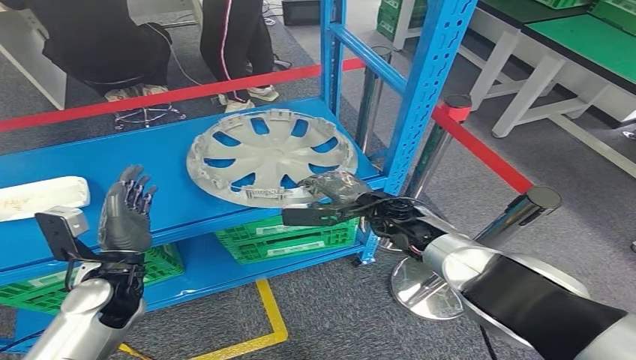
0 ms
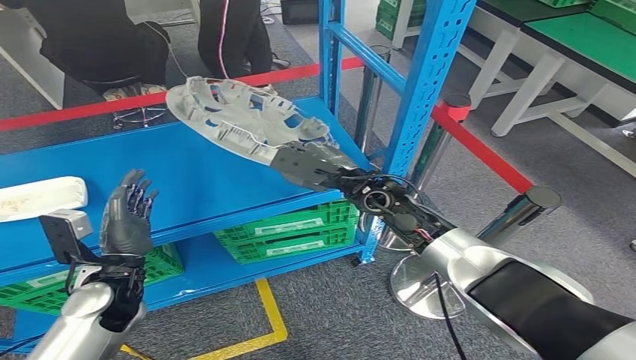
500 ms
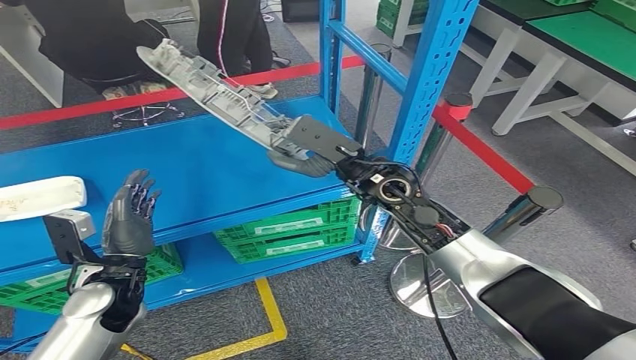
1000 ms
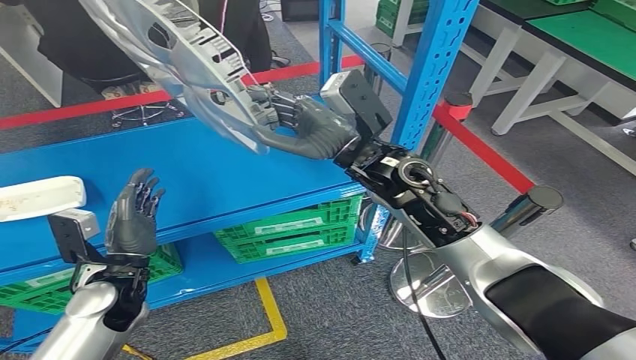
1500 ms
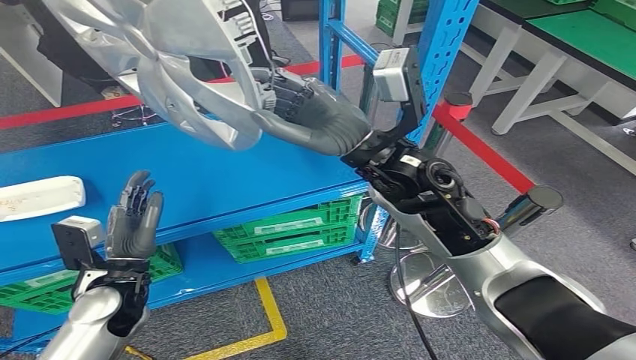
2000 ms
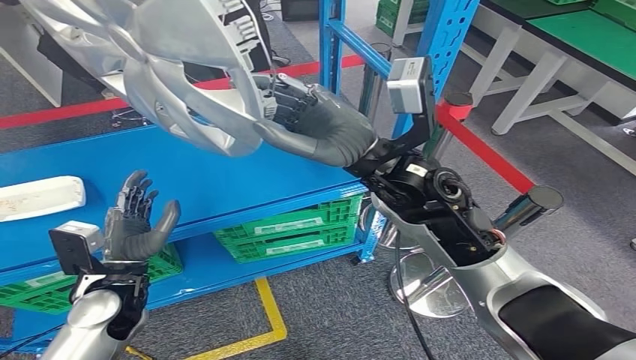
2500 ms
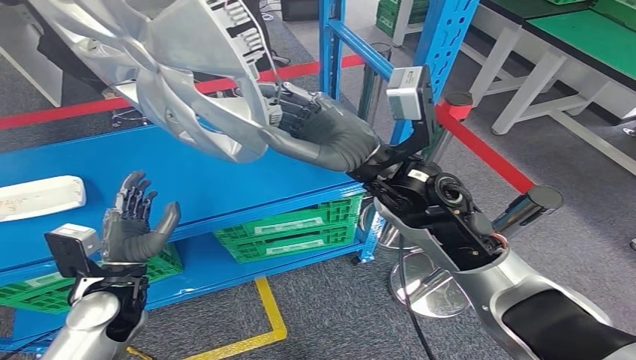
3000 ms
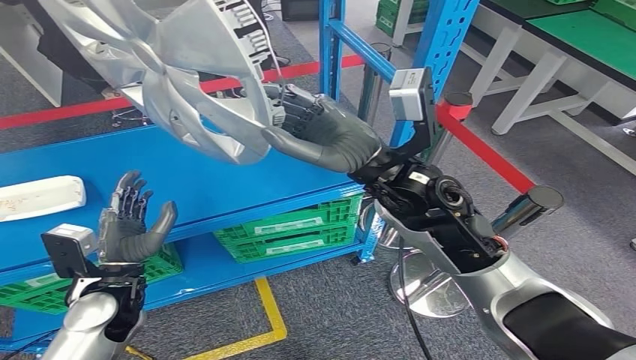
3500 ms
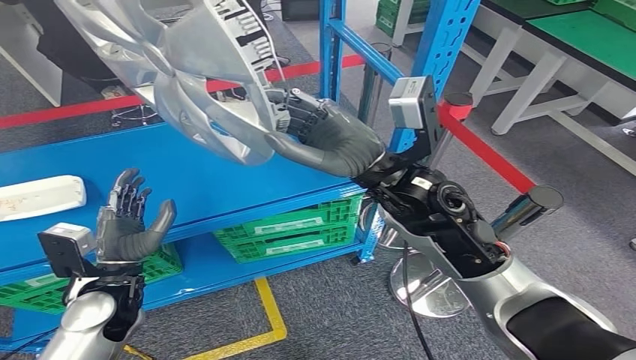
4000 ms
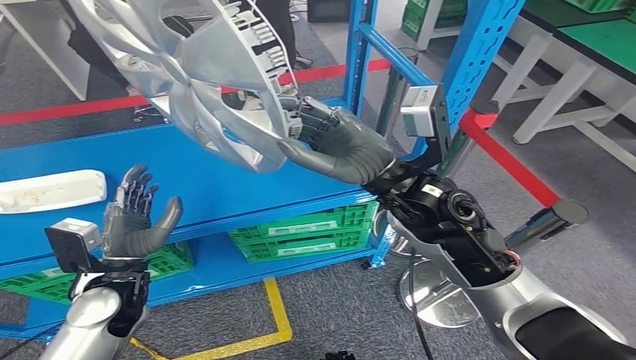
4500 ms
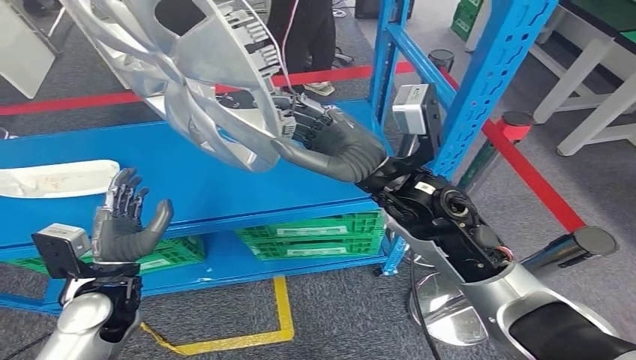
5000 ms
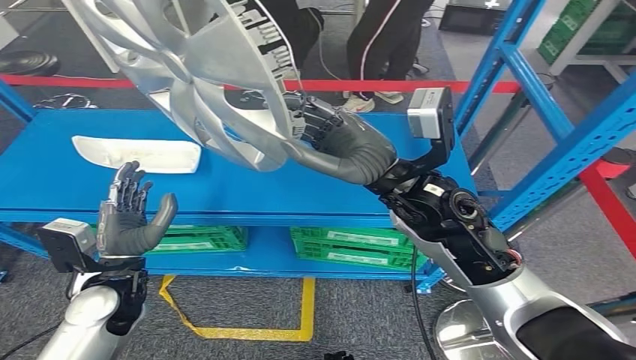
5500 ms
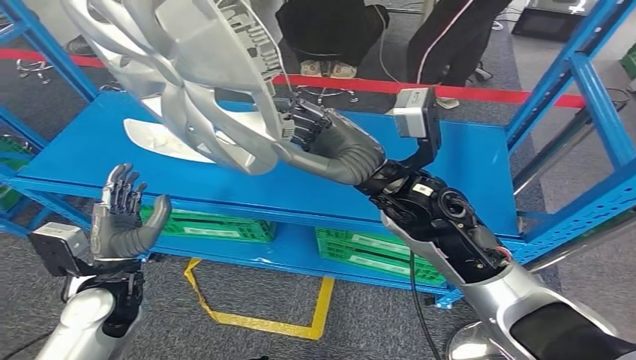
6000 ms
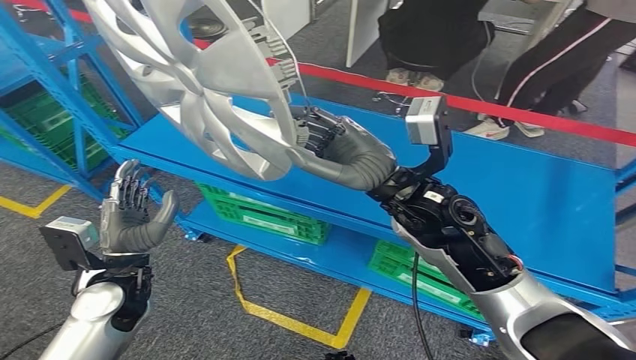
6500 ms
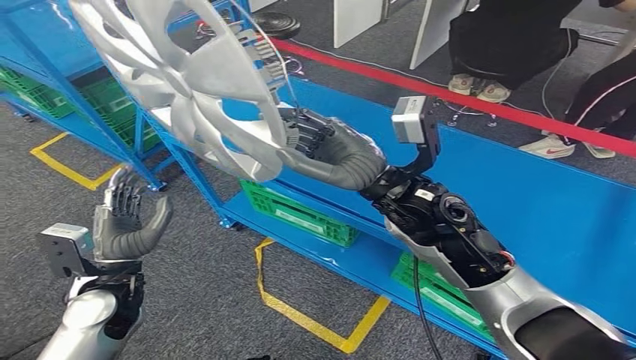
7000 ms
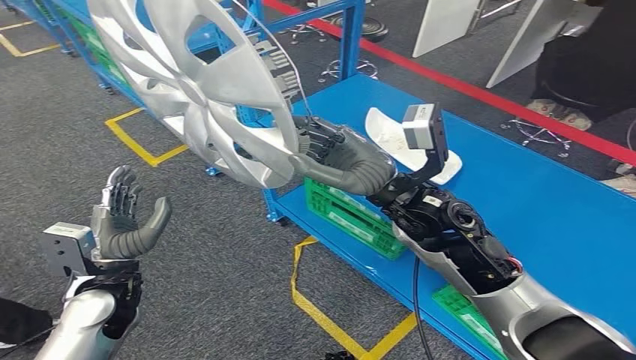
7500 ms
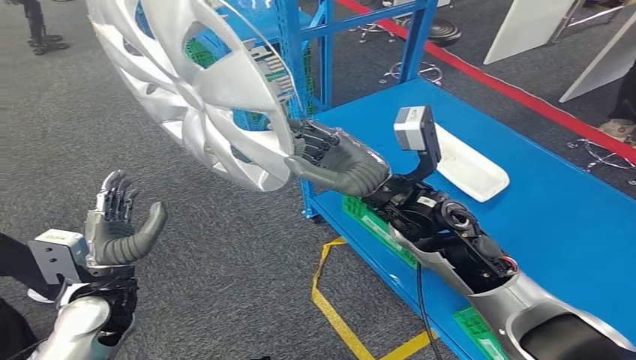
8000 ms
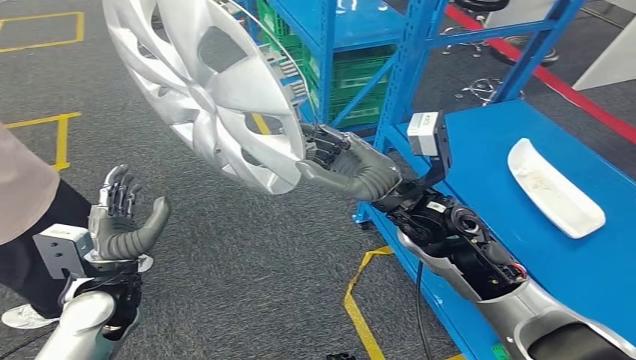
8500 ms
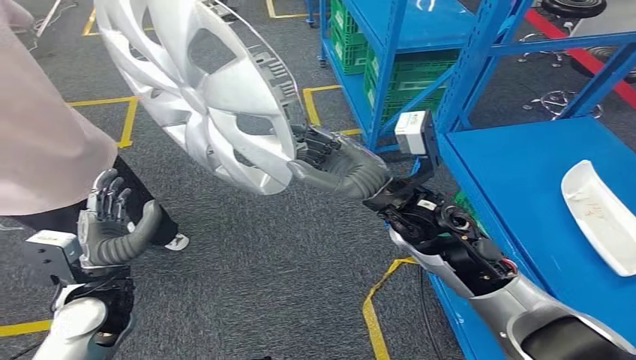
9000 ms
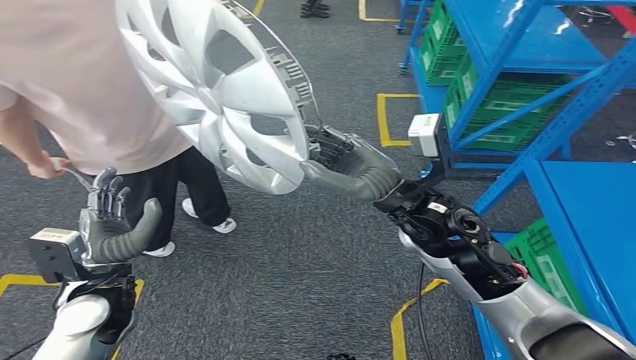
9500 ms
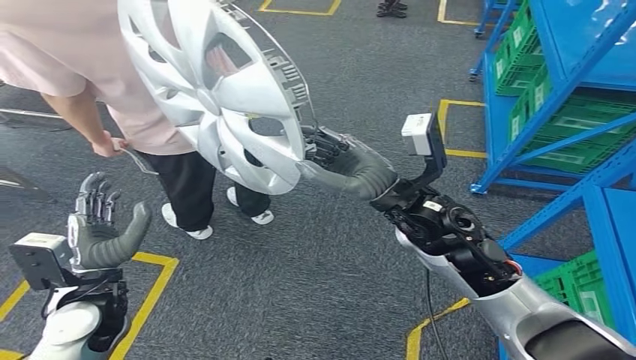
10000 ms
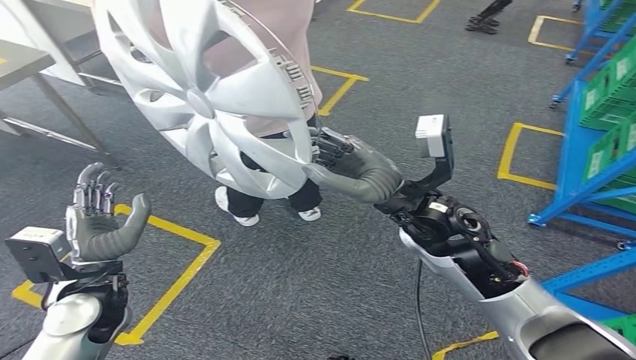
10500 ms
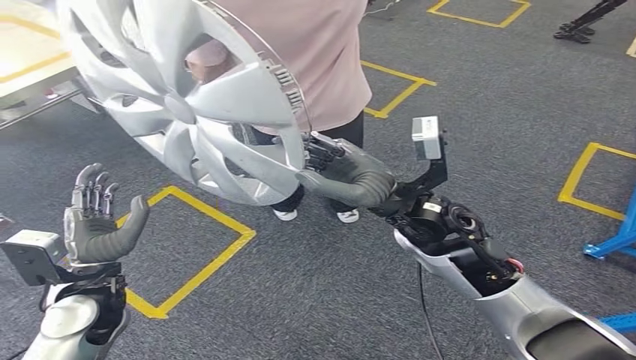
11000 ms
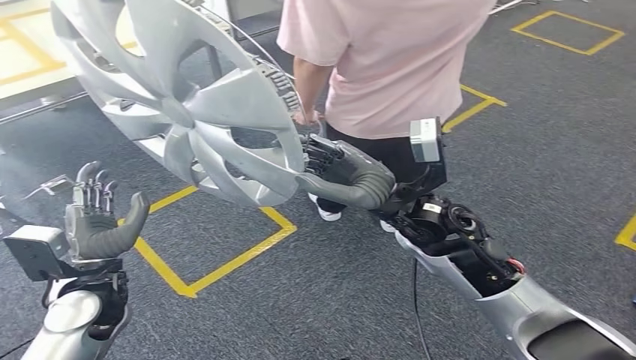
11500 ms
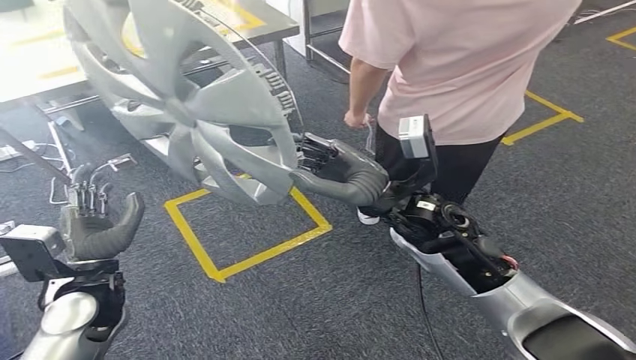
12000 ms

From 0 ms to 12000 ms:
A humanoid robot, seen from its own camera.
Step, from 0 ms to 3500 ms: Pick up the small parts from the shelf.
From 2000 ms to 4000 ms: The hands move only a little.

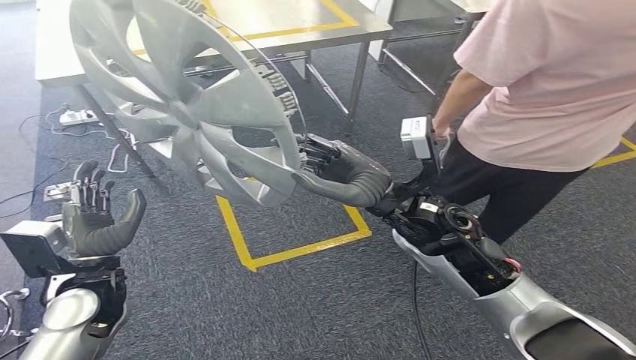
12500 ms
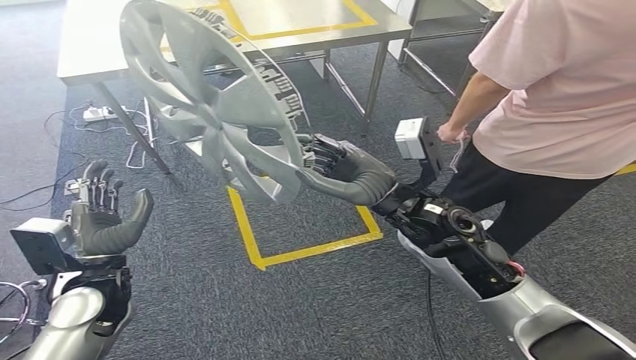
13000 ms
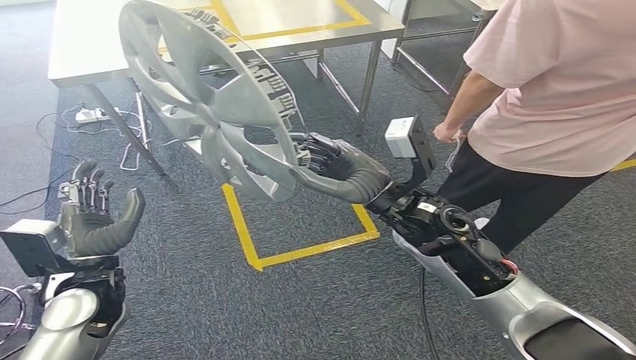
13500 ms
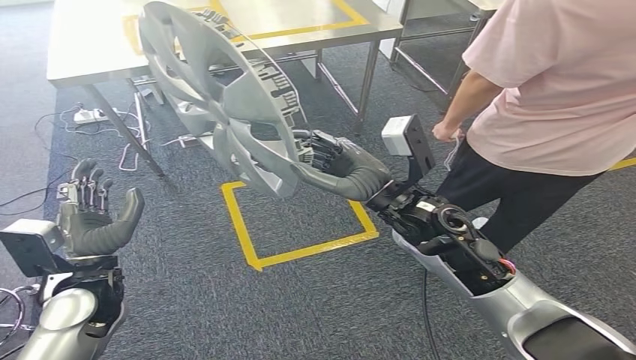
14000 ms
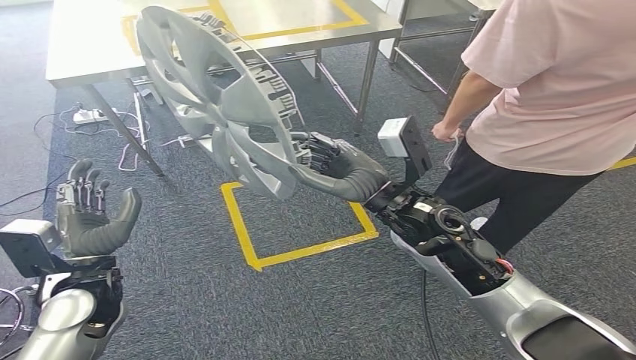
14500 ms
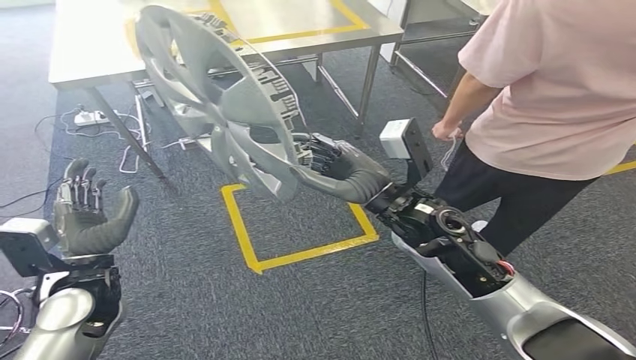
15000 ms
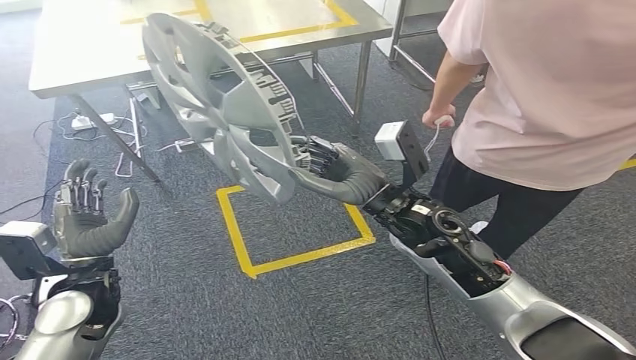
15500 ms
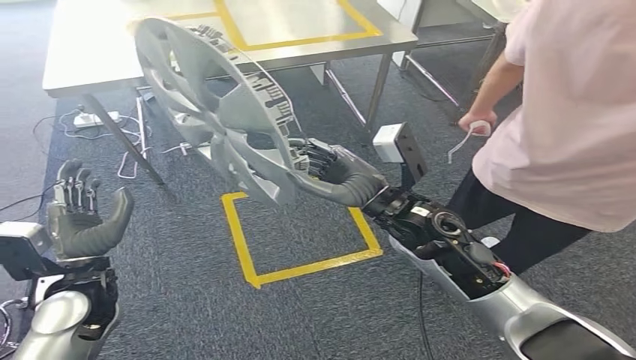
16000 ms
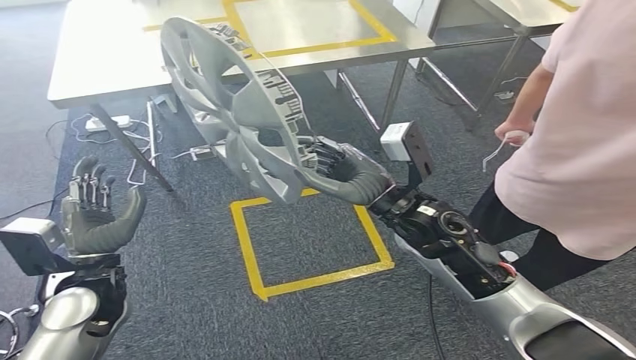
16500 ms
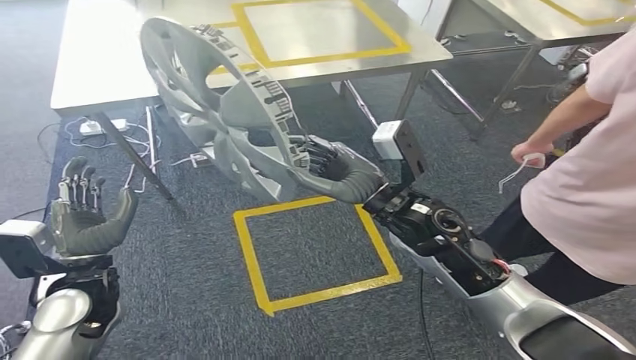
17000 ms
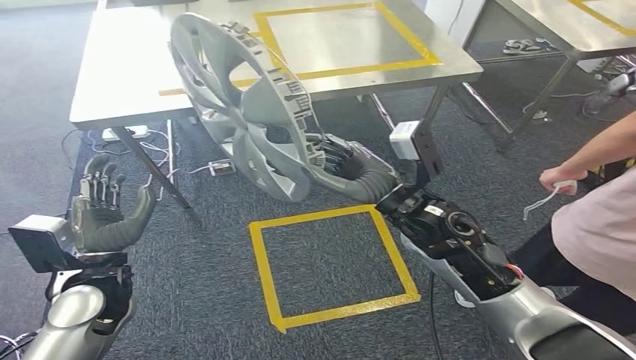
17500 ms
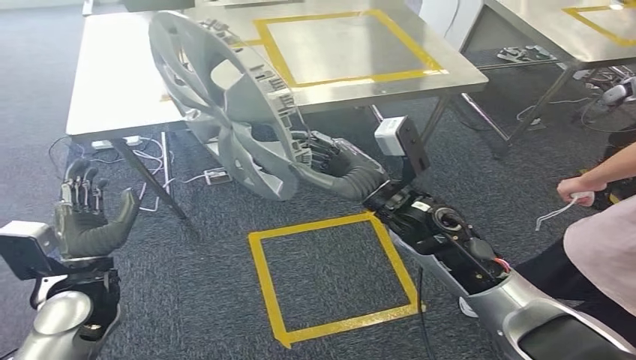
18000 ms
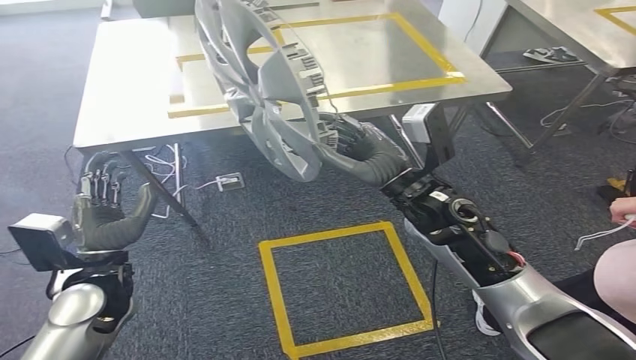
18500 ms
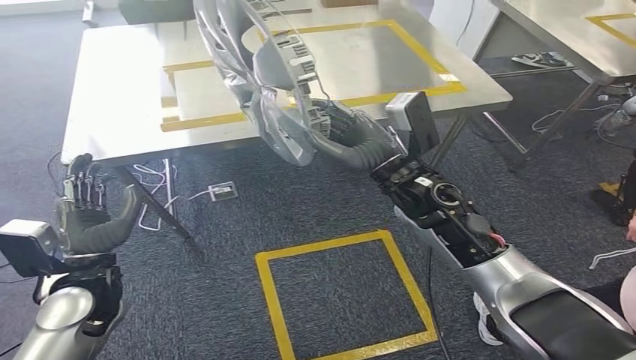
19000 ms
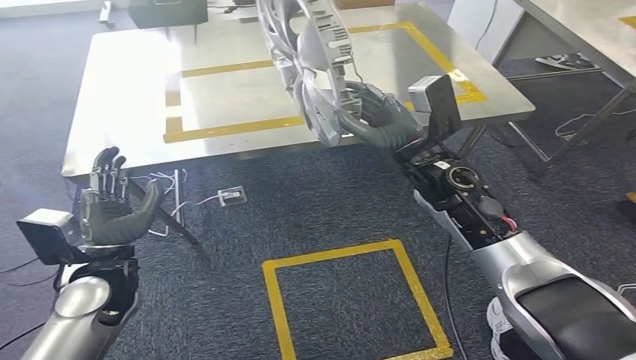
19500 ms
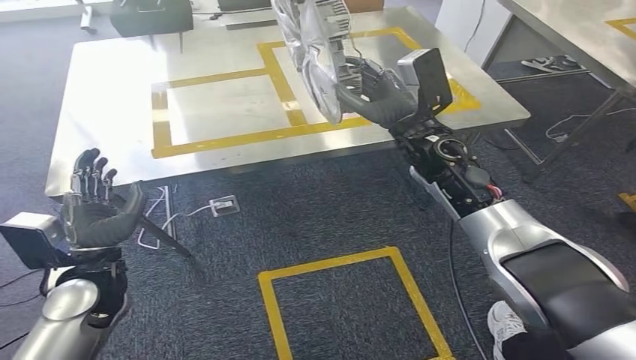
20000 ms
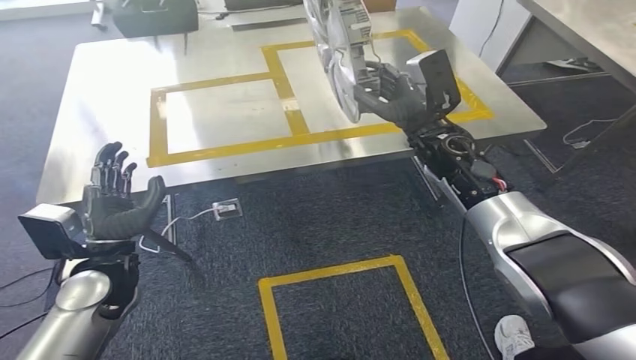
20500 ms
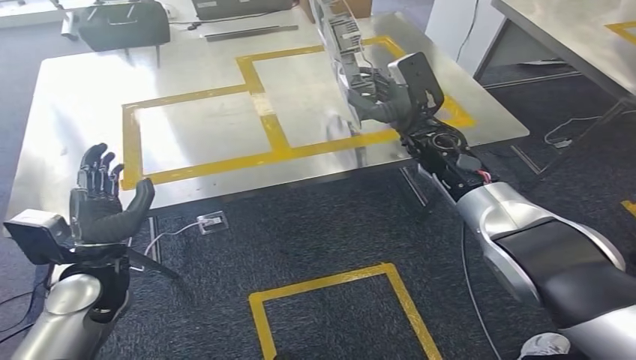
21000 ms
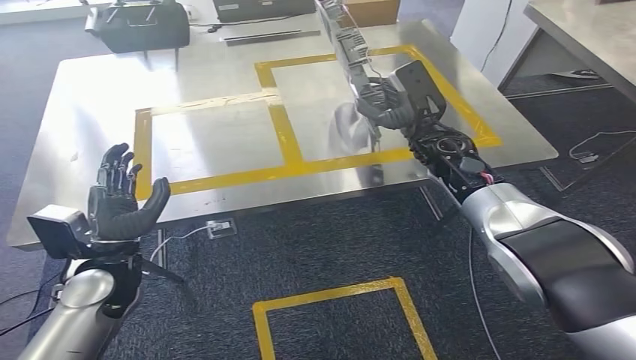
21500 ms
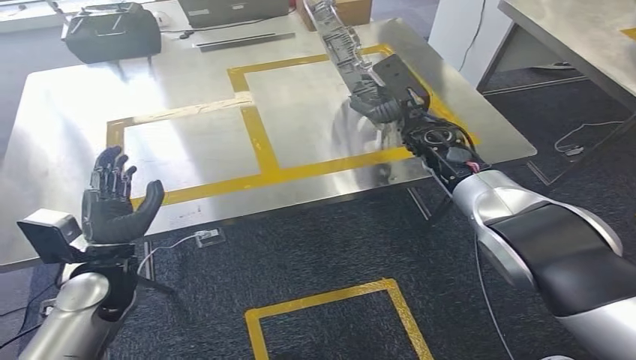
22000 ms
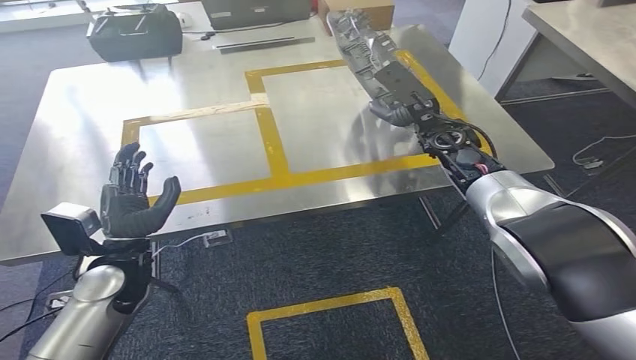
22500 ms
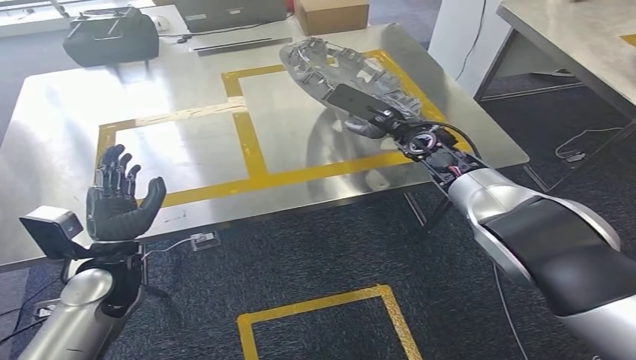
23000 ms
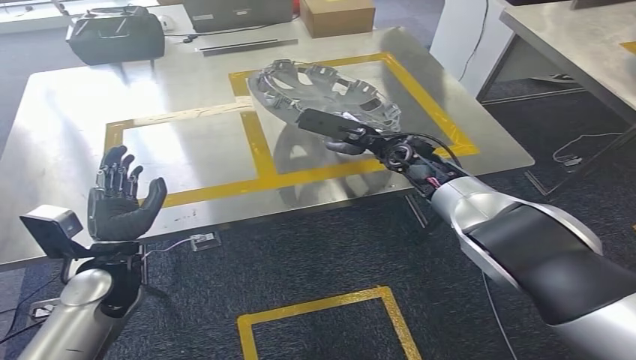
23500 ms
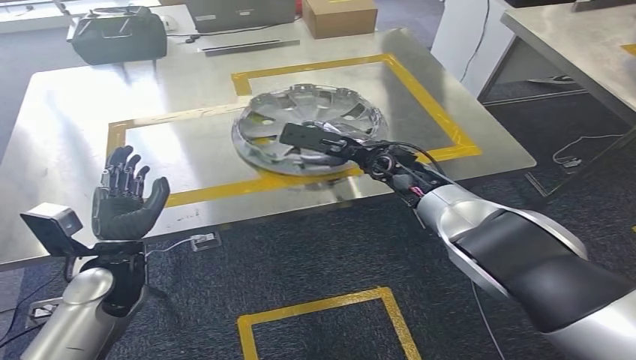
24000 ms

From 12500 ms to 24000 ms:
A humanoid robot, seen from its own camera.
Step, from 12500 ms to 22500 ms: Move the small parts to the workbench.
